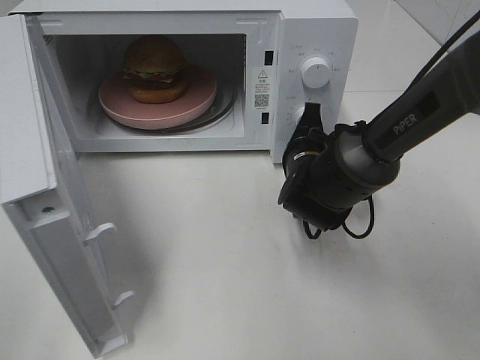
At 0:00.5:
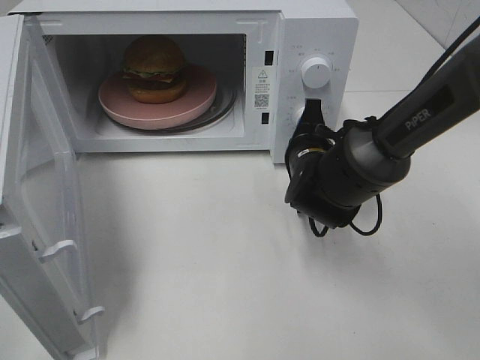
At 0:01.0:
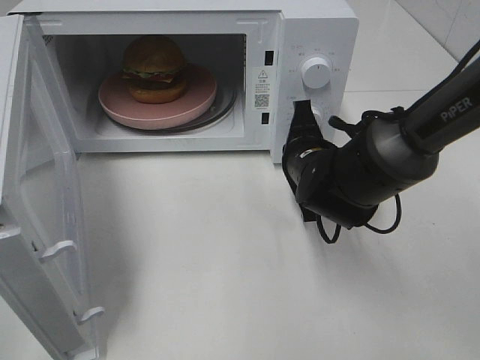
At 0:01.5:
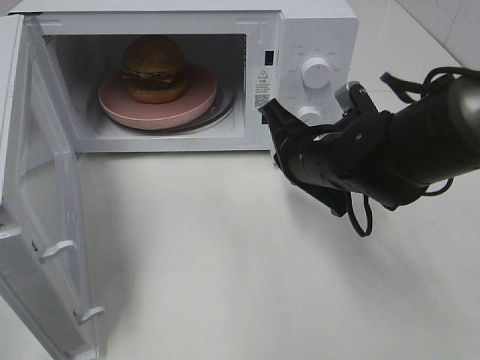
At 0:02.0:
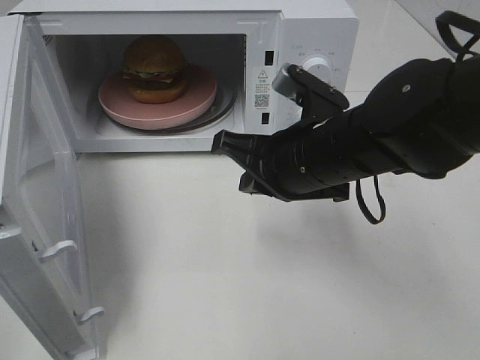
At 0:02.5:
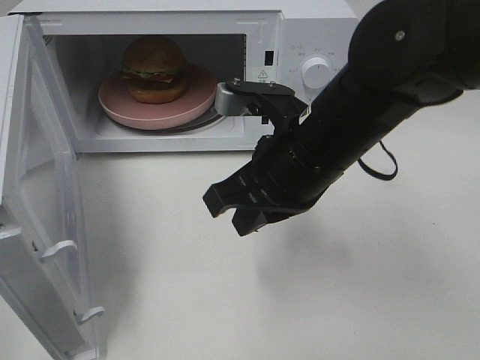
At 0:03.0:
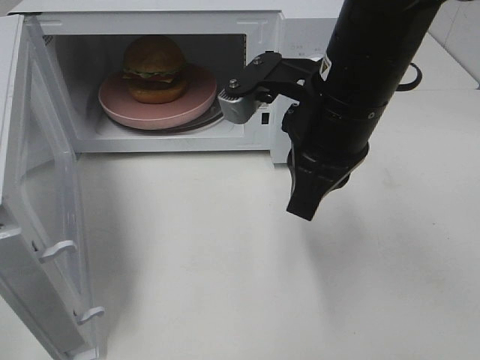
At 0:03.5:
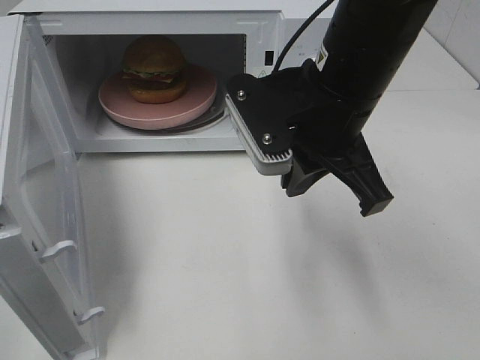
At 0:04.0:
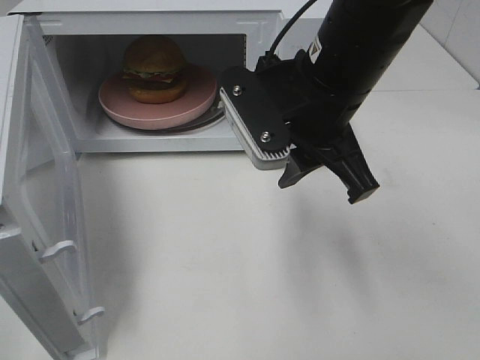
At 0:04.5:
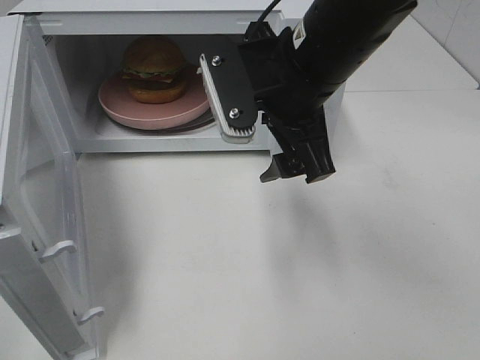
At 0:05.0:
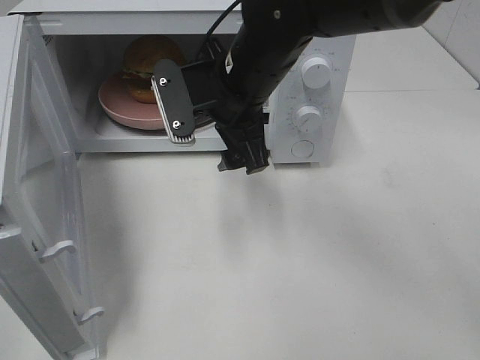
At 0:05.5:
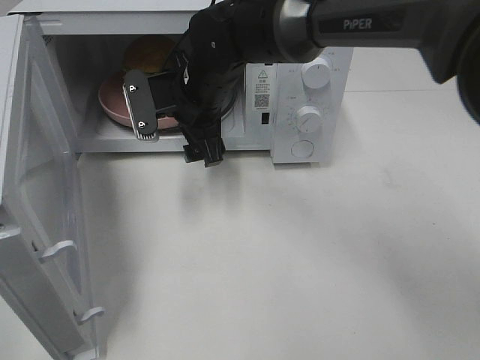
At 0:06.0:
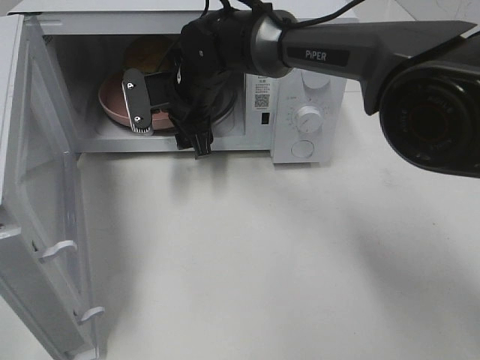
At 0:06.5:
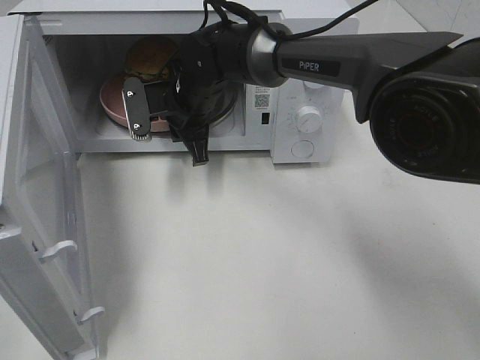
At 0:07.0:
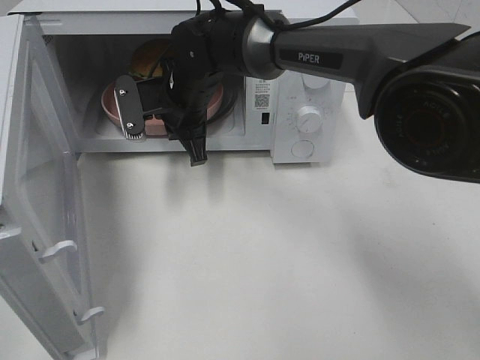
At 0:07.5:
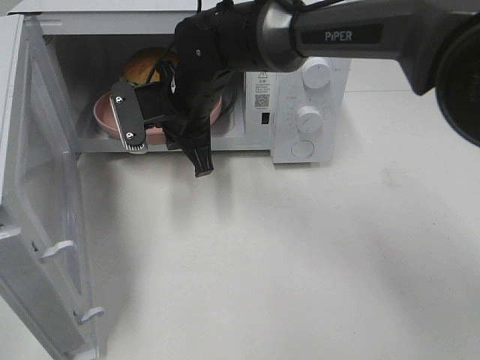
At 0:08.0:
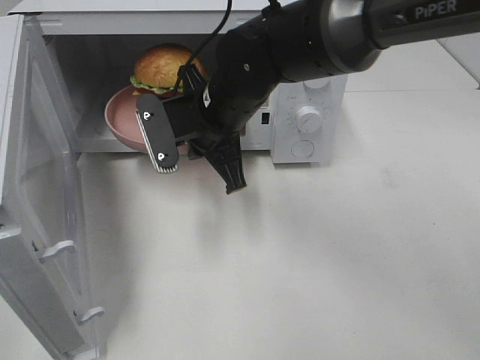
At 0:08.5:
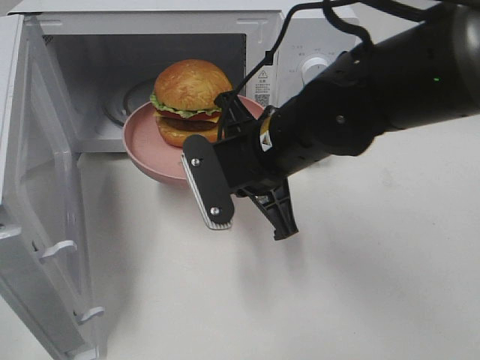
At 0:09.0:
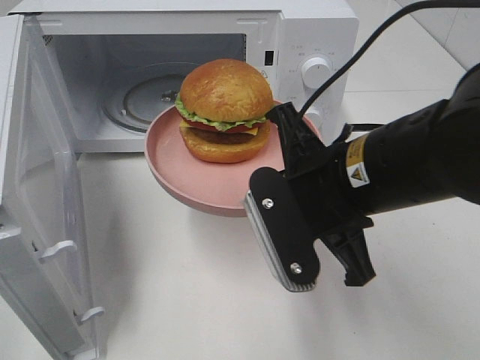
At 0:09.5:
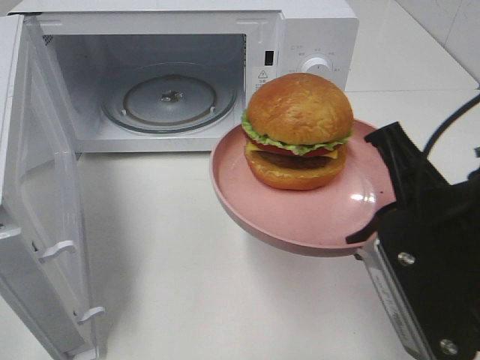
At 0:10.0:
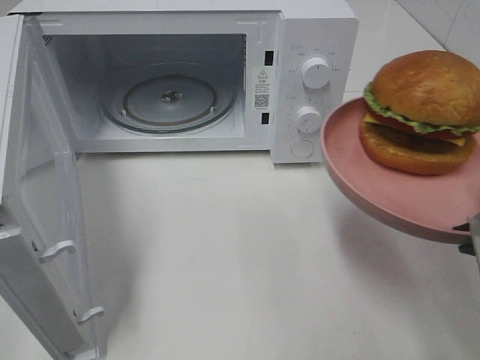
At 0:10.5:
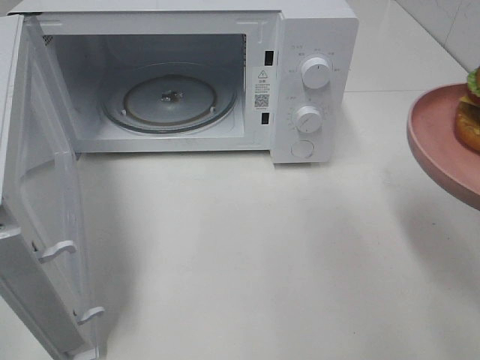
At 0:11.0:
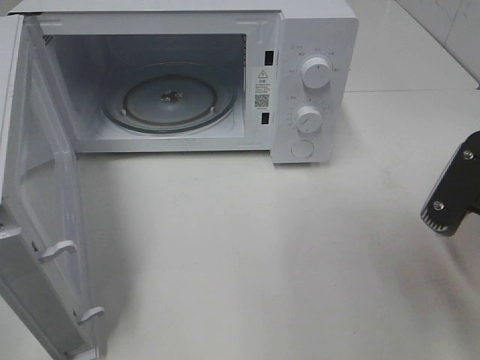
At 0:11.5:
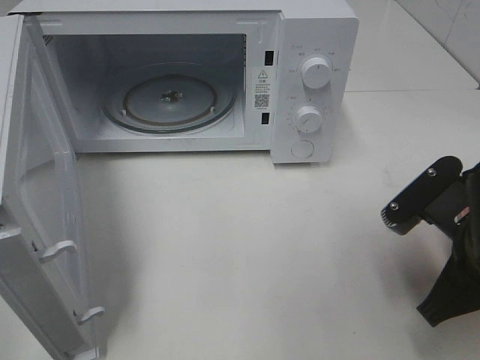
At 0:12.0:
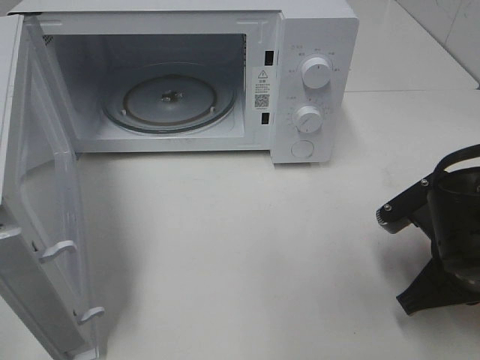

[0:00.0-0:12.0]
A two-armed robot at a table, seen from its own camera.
Task of the whole recording: Heat the burger.
Step, 0:01.0 to 0:06.5: Right hand: grab the plate with the hamburger.
0:00.0 to 0:02.0: The right gripper heads upward and backward, covering roughly 15 cm.
0:02.0 to 0:04.0: The right gripper goes some 10 cm upward, and opens its fingers.
0:04.0 to 0:06.0: The right gripper moves forward, to the left and downward, about 25 cm, and opens.
0:06.0 to 0:08.0: The right gripper travels backward by about 10 cm, and closes up.
0:08.0 to 0:10.0: The right gripper heads backward and to the right, covering approximately 30 cm.
0:10.0 to 0:12.0: The right gripper heads downward and forward, covering approximately 15 cm.

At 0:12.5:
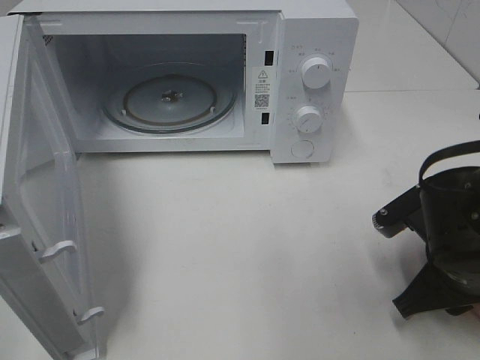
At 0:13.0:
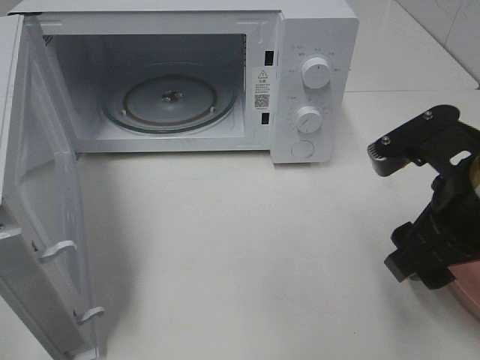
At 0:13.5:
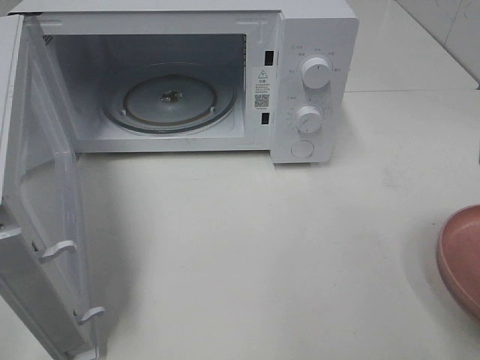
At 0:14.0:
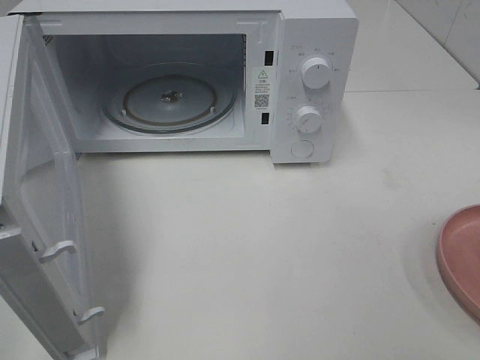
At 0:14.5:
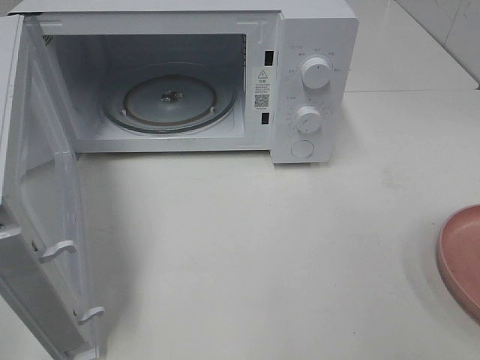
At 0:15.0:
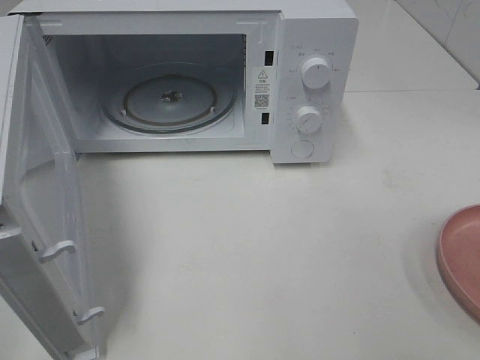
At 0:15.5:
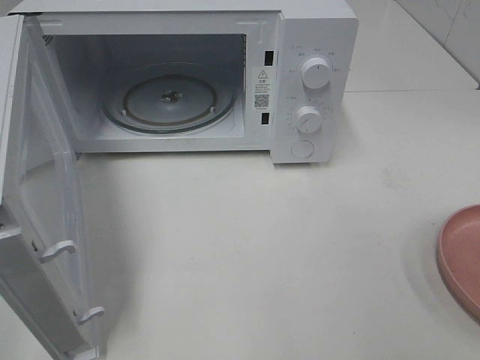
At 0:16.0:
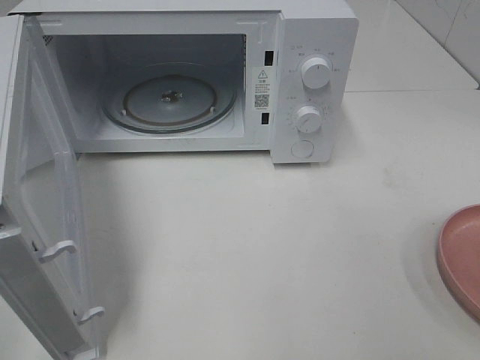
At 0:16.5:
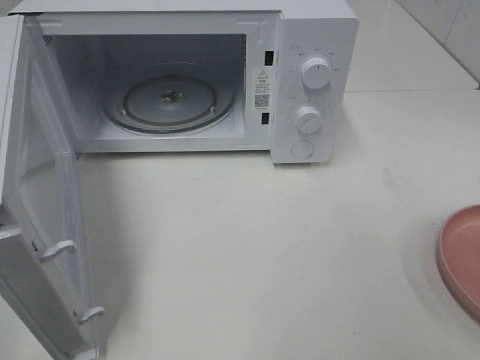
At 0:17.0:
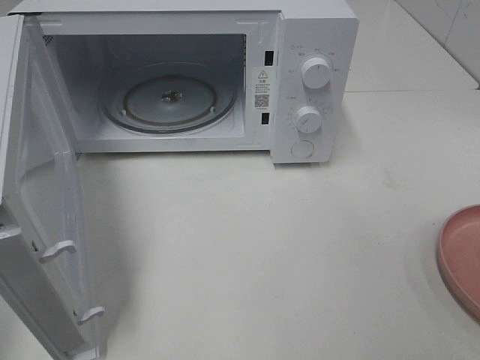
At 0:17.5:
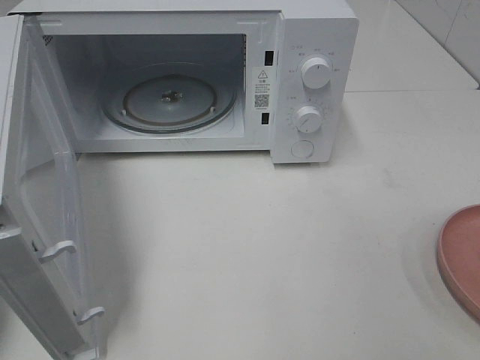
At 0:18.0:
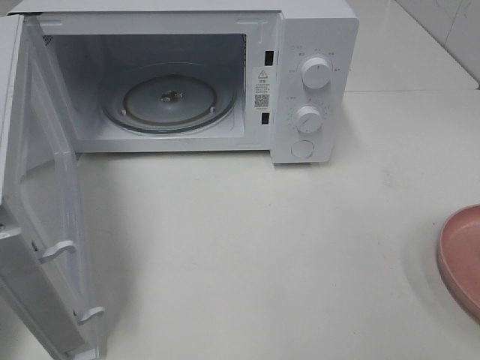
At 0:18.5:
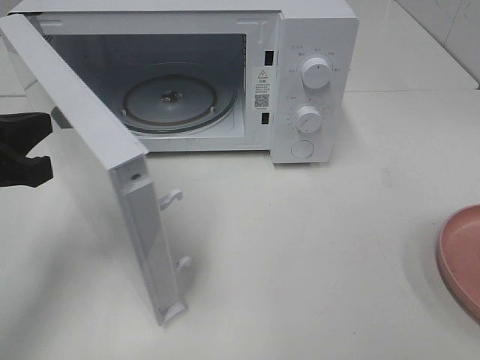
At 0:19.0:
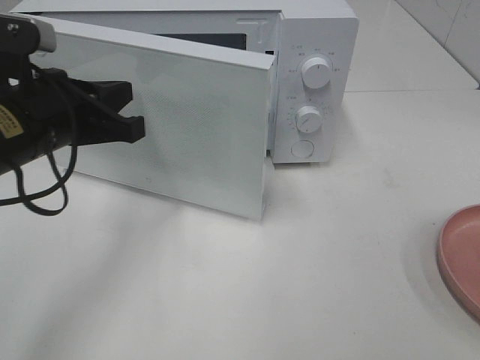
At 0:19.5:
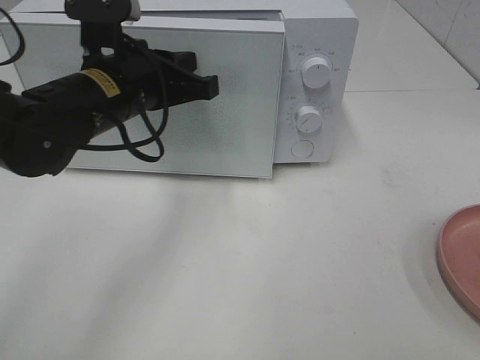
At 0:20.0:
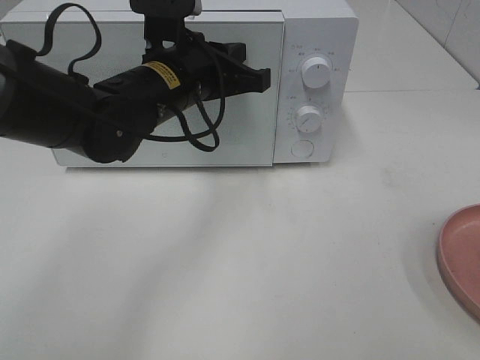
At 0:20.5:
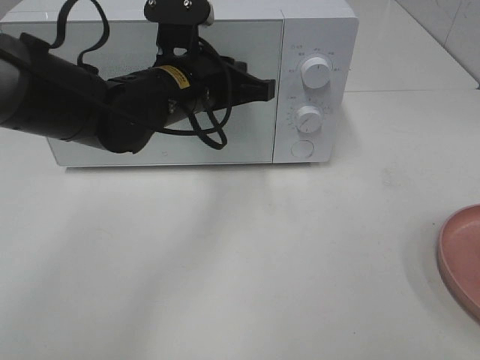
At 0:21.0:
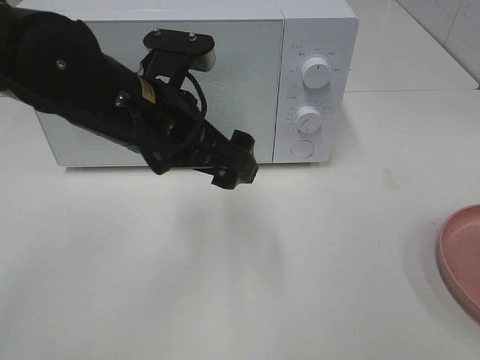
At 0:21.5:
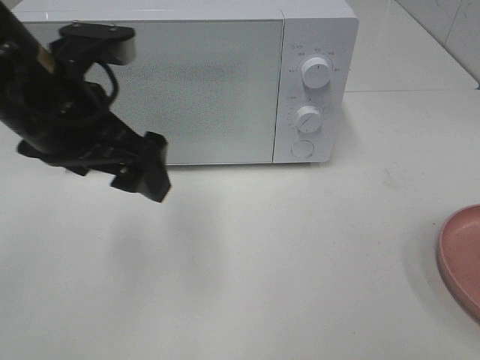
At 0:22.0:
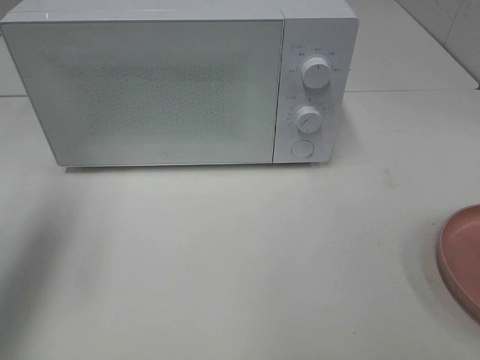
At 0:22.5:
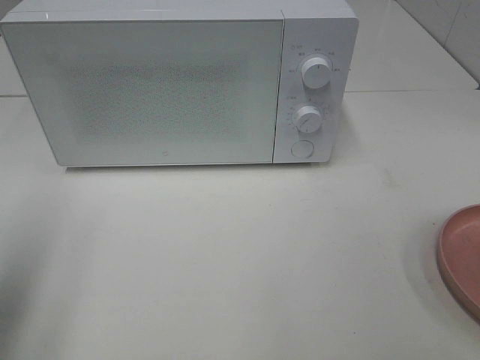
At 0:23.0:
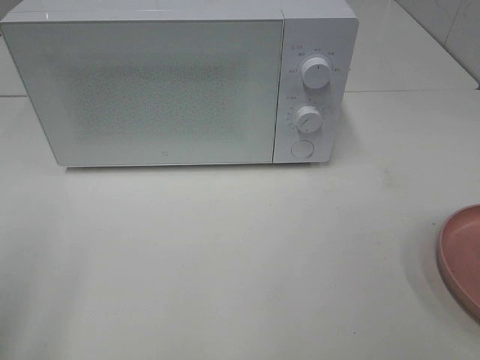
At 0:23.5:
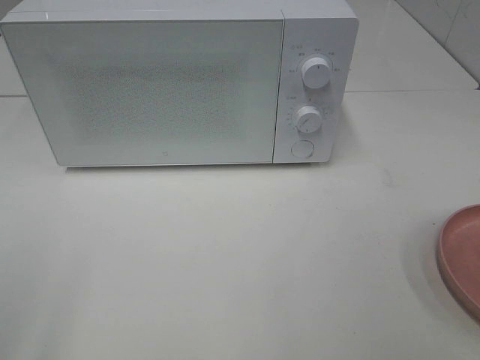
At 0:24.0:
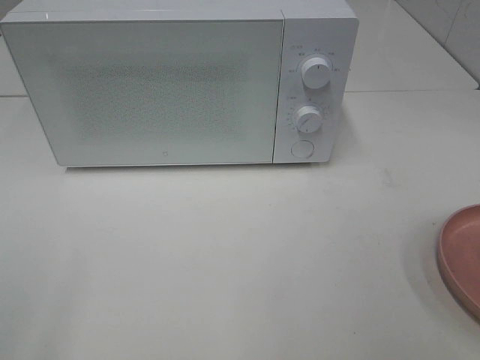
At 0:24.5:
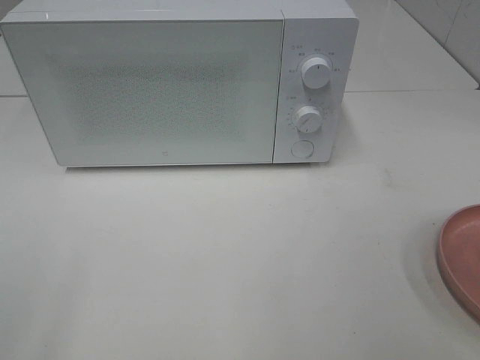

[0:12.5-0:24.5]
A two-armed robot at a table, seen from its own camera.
Task of the whole recording: Heat the burger.
Step, 0:13.0 to 0:20.5: Left hand: close the microwave door.
0:12.5 to 0:14.5: The right gripper moves backward, upward and to the right, roughly 30 cm, and opens its fingers.
0:14.5 to 0:16.5: The two grippers keep their place.
0:16.5 to 0:18.5: The left gripper is displaced forward and downward by some 25 cm, and closes.
0:18.5 to 0:20.5: The left gripper shifts about 25 cm to the right and forward.
0:20.5 to 0:22.5: The left gripper goes some 30 cm to the left and backward, and opens up.
0:22.5 to 0:24.5: The left gripper shifts roughly 15 cm backward.

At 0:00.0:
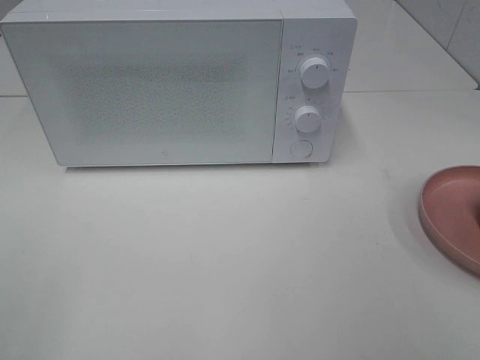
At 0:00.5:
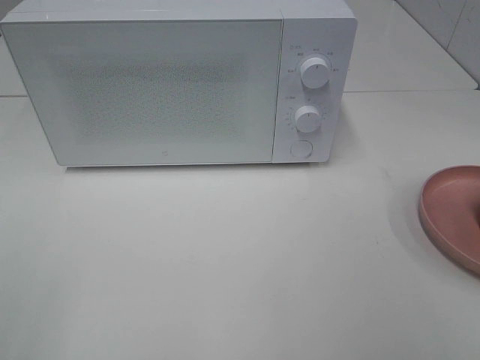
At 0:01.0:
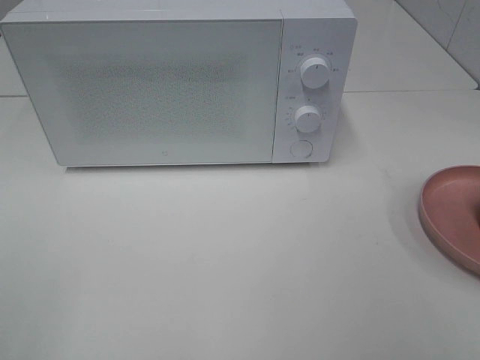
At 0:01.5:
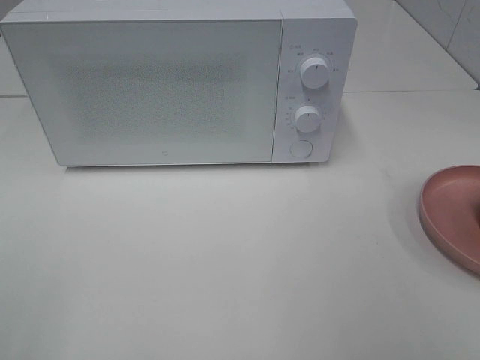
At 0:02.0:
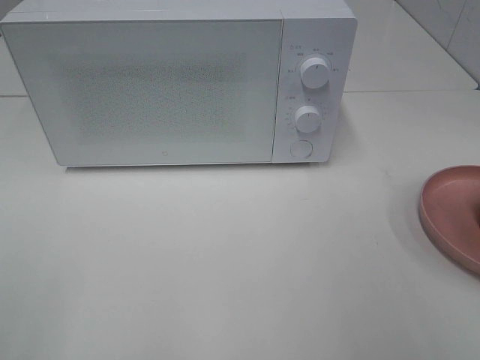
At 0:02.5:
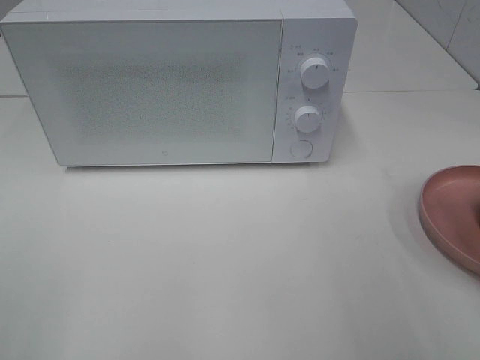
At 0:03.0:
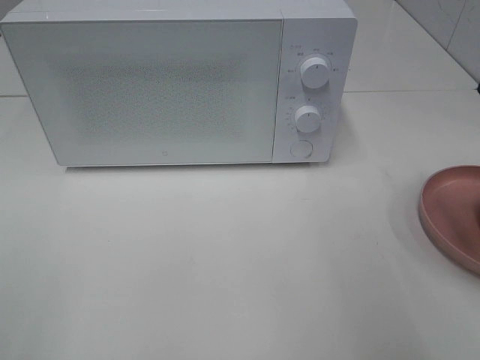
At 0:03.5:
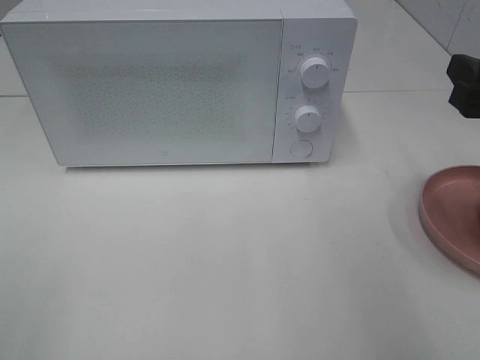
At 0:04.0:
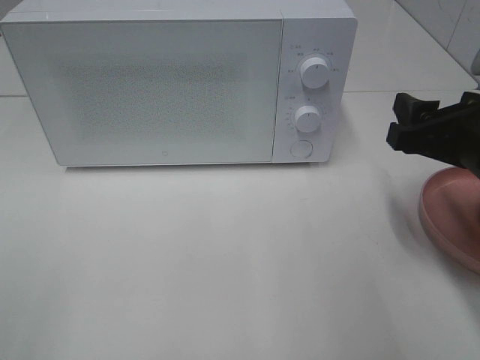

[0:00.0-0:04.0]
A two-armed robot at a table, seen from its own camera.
Task of the whole recording: Heat the burger.
0:02.0 to 0:04.0: The right gripper heads forward and downward, covering roughly 20 cm.
